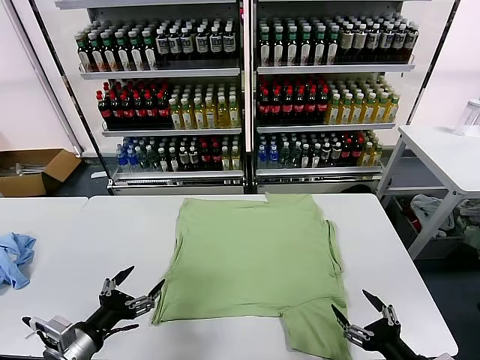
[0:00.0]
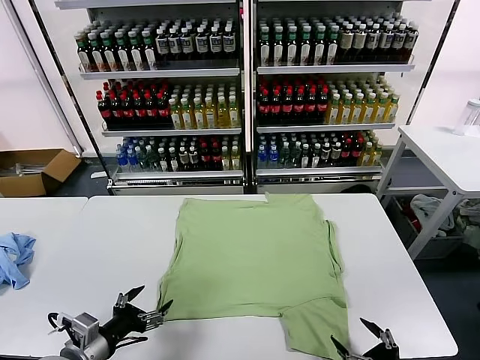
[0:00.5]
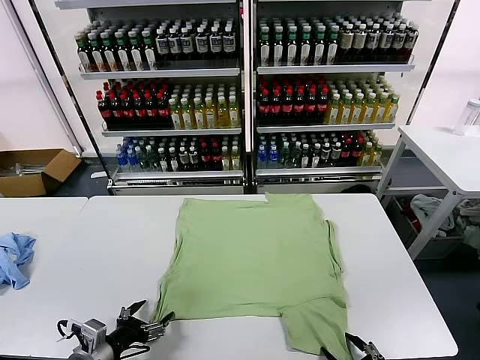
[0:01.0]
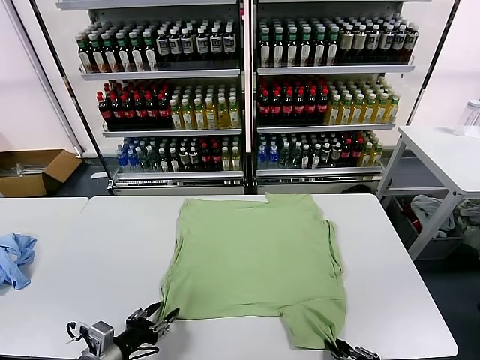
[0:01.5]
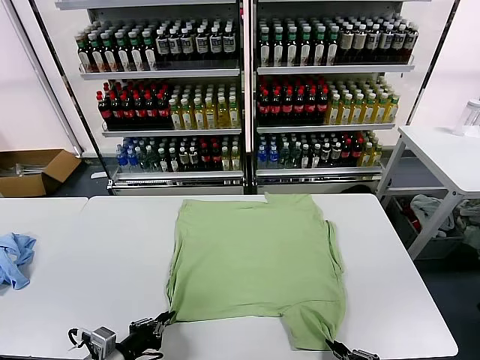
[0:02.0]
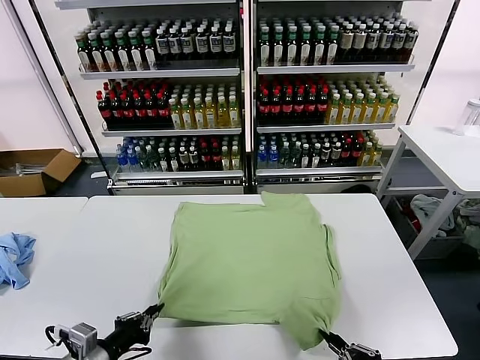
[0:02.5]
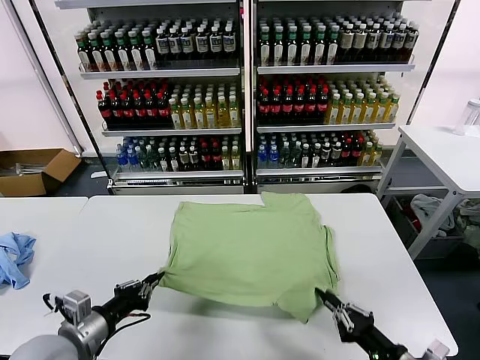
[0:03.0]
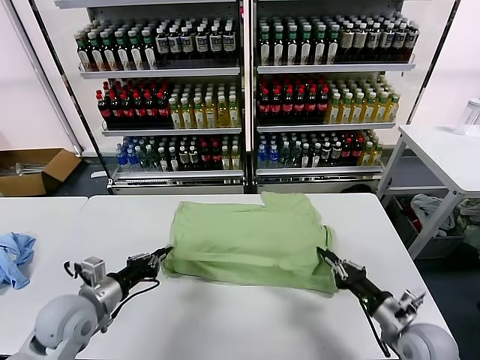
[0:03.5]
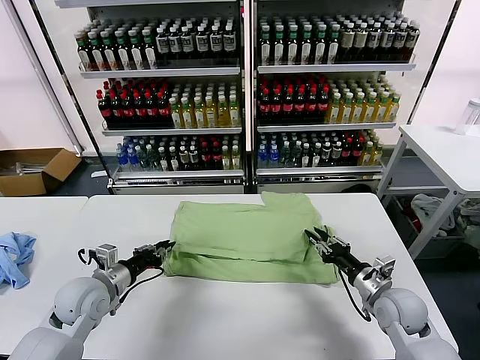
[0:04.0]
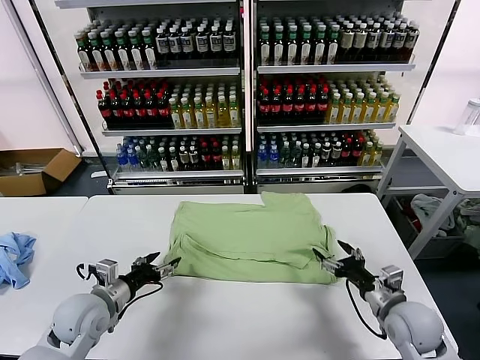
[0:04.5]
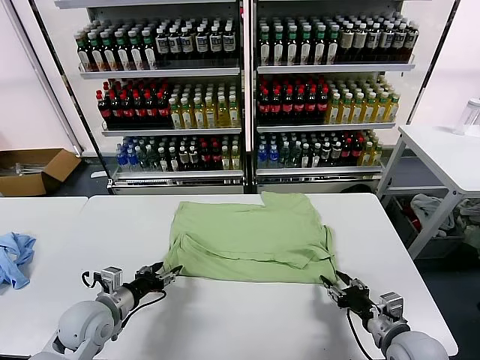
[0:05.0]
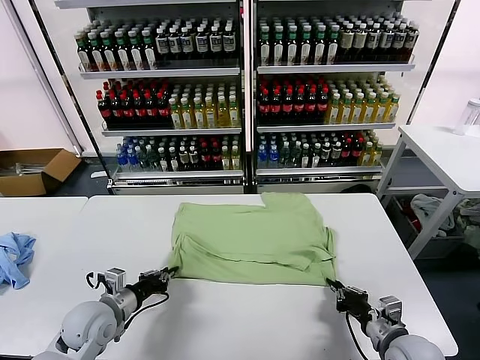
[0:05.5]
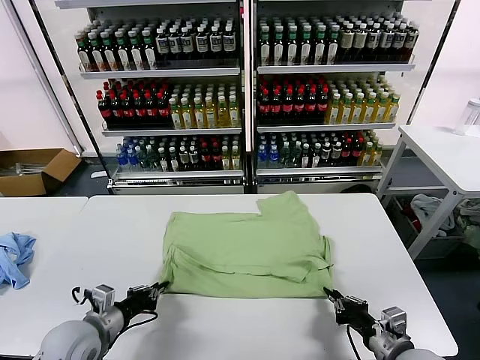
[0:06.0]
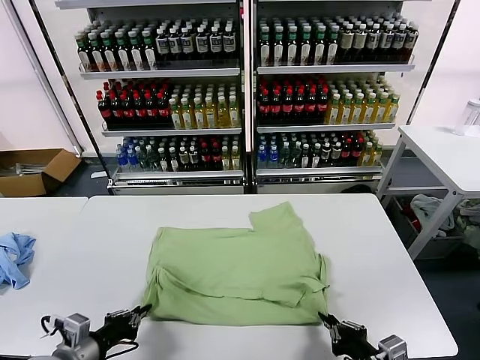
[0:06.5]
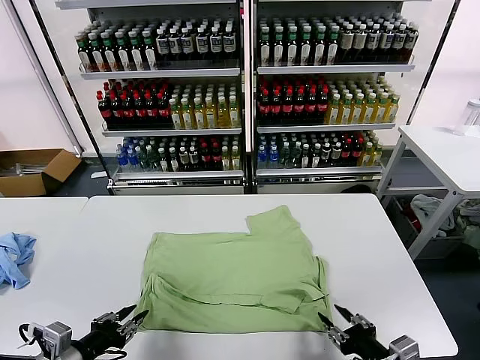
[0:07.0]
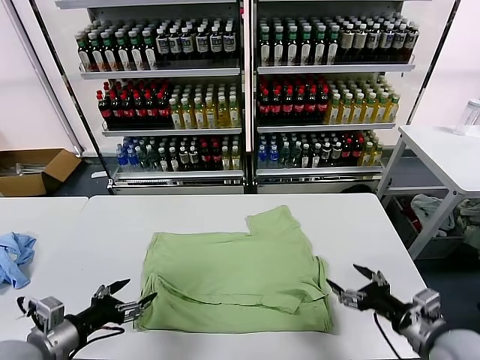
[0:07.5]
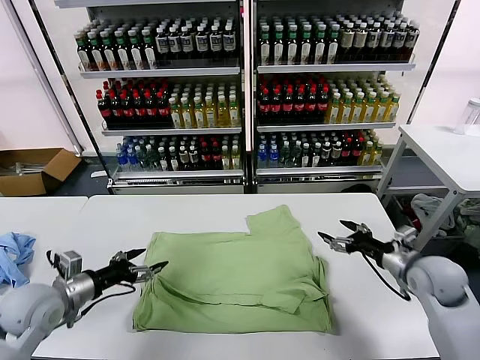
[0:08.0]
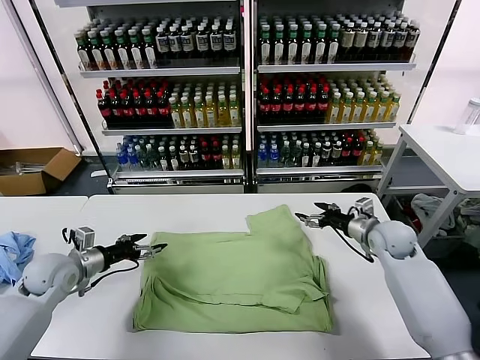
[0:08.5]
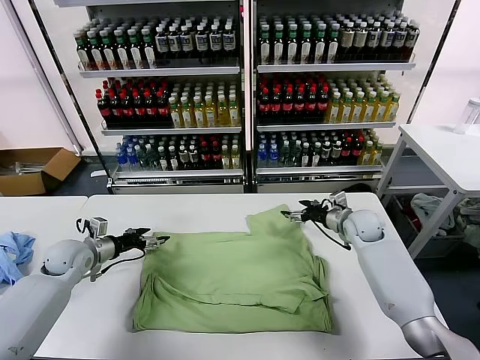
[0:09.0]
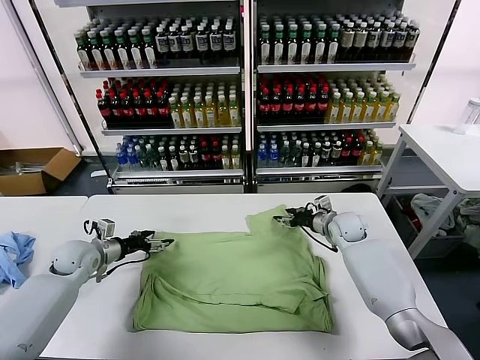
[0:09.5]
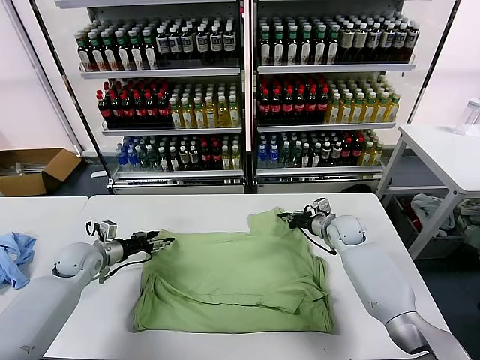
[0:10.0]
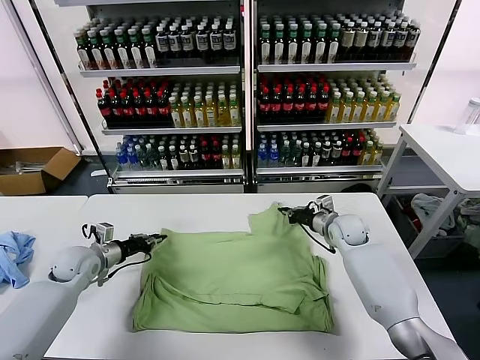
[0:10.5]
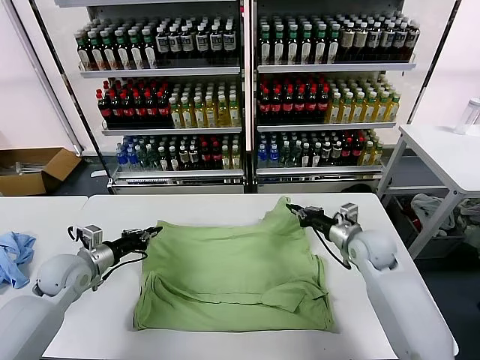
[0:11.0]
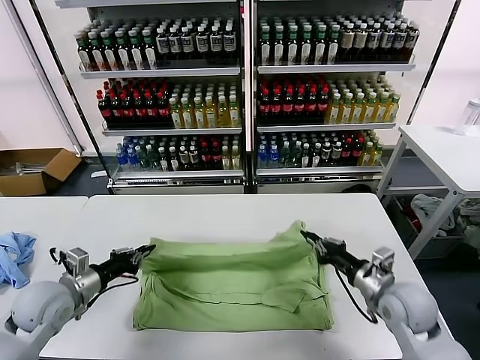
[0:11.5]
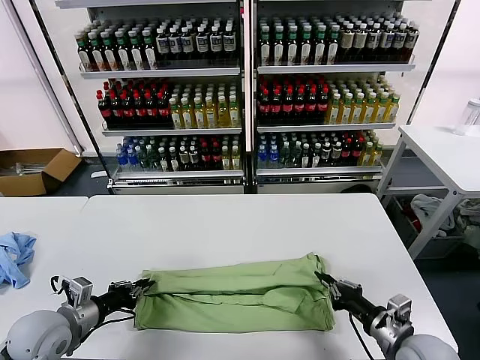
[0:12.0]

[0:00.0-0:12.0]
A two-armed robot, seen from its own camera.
Task of the whole recording: fold and organize the clothes.
Step, 0:00.0 to 0:01.5: use both grippers simultaneously to clamp the lower edge of the clothing fabric.
Step, 0:02.5 to 0:04.0: use both grippers to drag the lower edge of the fabric forward and fold it over the upper edge.
Step, 0:04.5 to 0:06.5: Drag the clothes downward with both gripper.
Step, 0:07.5 to 0:10.5: use both grippers simultaneously to clamp the upper edge of the clothing fabric.
0:02.0 to 0:04.0: The two grippers go approximately 20 cm forward. The right gripper opens up.
0:04.0 to 0:06.0: The right gripper shifts some 15 cm backward, and closes its fingers. Meanwhile the left gripper travels backward by some 10 cm, and opens, then closes again.
0:06.0 to 0:08.0: The left gripper goes roughly 10 cm upward, to the left and forward, and opens up; the right gripper heads forward, covering approximately 20 cm, and opens.
0:08.0 to 0:10.0: The left gripper goes approximately 15 cm forward and downward. The right gripper goes roughly 20 cm forward, to the left and downward, and closes.
0:10.0 to 0:12.0: The left gripper shifts roughly 20 cm backward, and closes its fingers; the right gripper heads backward, covering roughly 35 cm.

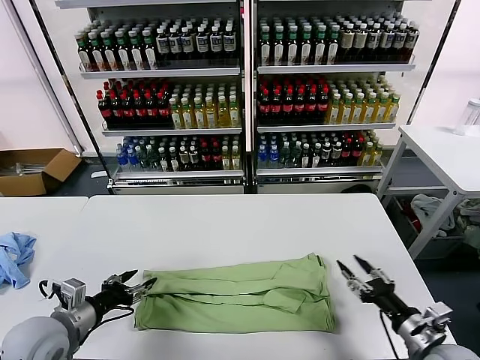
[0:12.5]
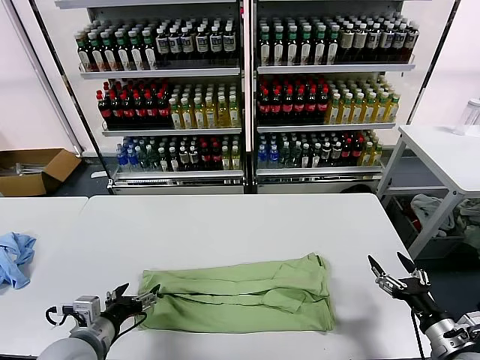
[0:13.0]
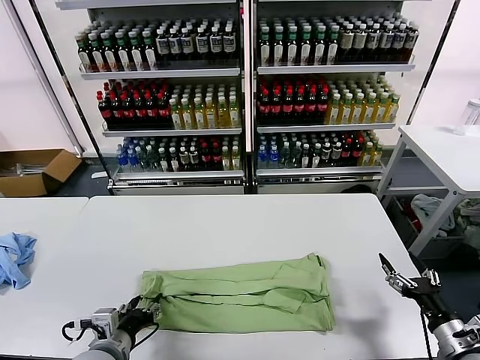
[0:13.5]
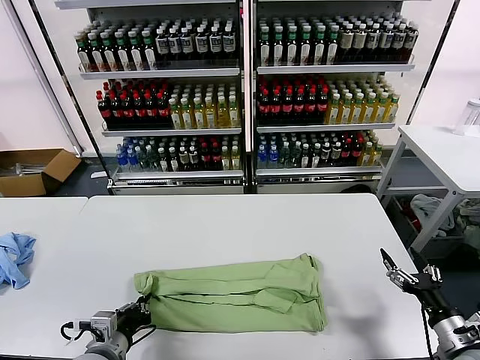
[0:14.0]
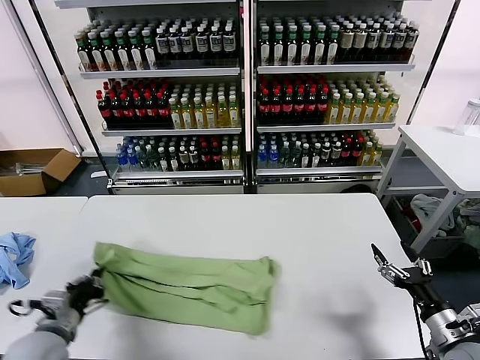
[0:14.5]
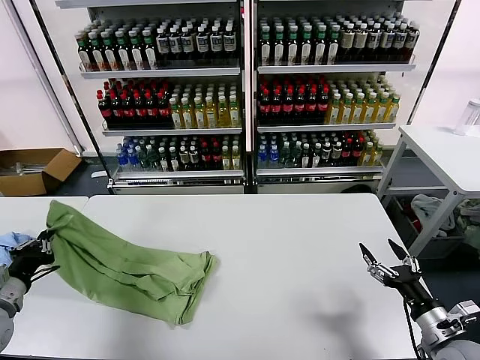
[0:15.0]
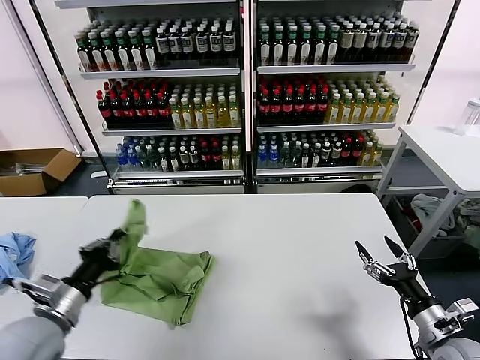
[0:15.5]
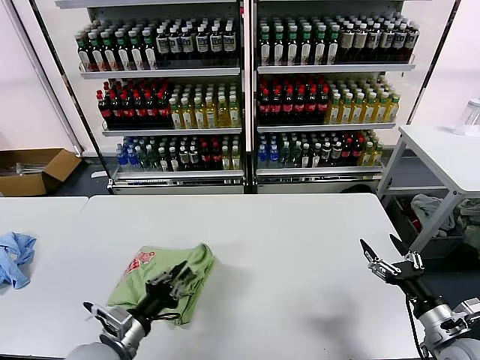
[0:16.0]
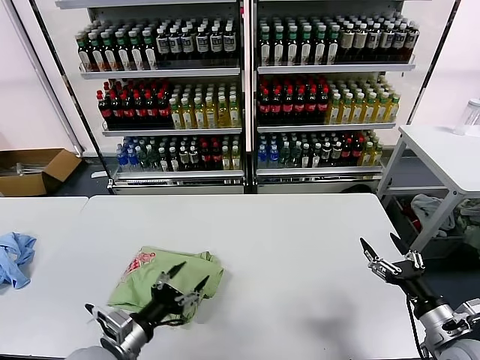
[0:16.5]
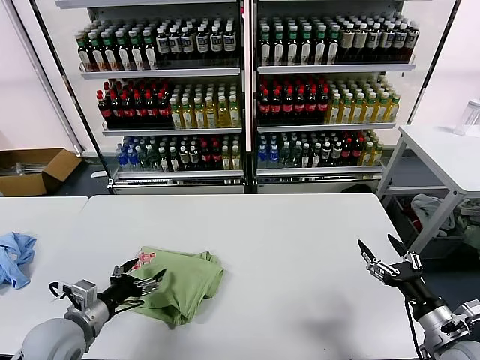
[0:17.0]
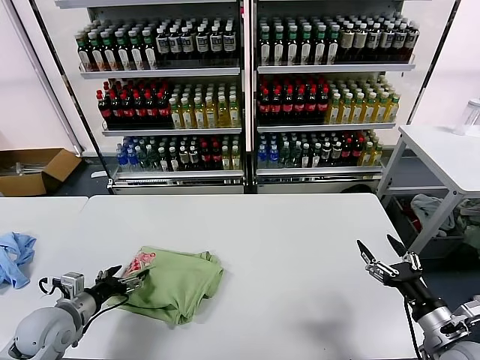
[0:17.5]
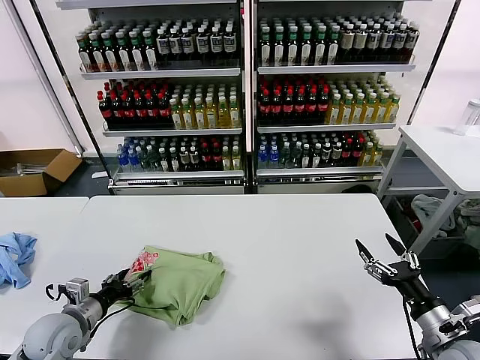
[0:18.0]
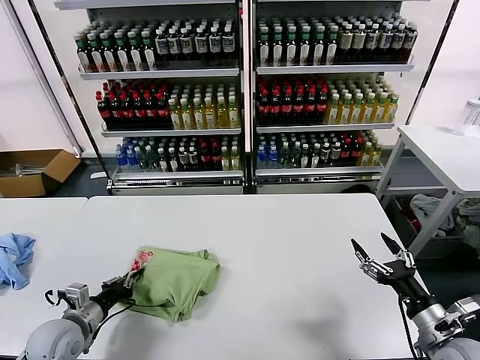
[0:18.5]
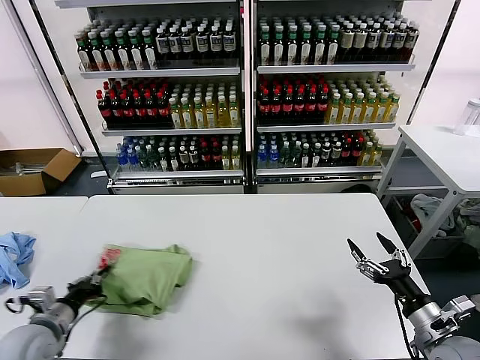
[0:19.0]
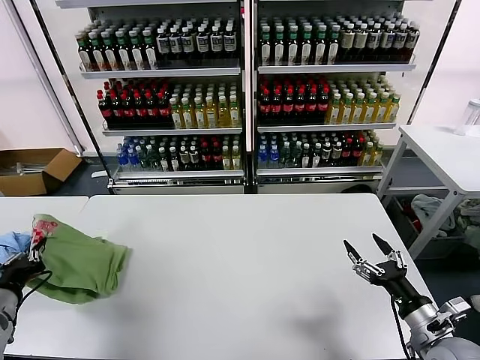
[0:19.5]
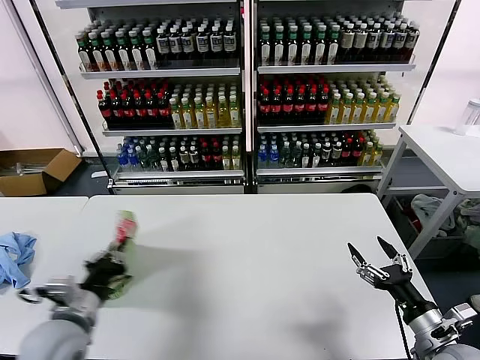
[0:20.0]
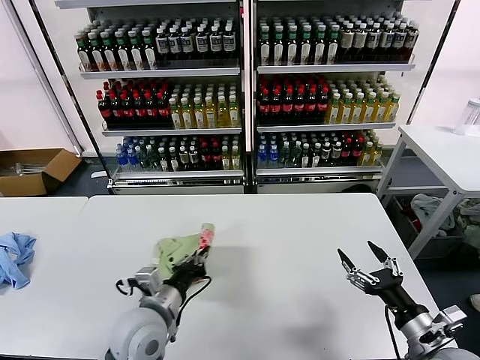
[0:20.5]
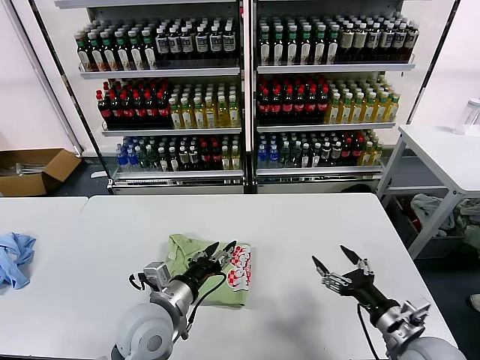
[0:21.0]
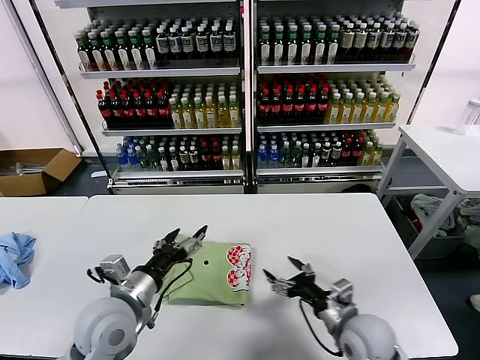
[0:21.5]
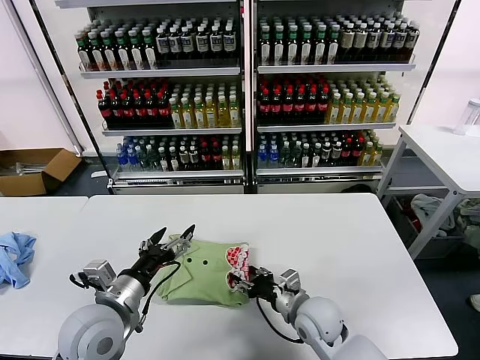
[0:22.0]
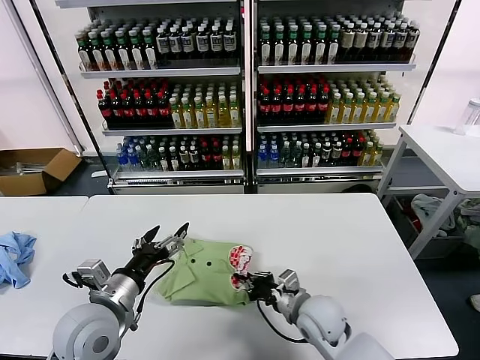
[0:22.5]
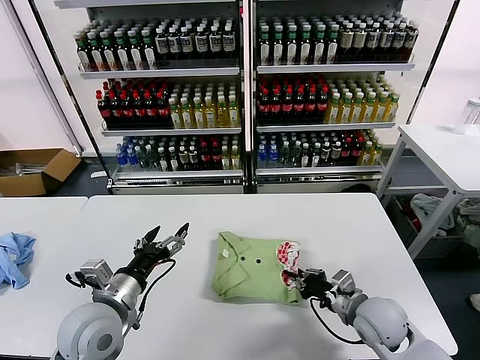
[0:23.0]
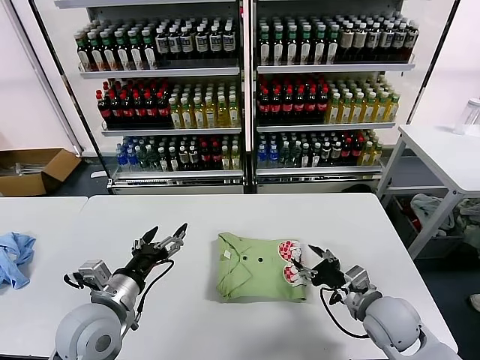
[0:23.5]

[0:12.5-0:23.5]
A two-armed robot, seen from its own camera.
Task of the whole recording: fold and organize the clothes.
Step, 0:12.5 to 0:14.0: use the left gripper to clamp the left edge of the fabric.
Step, 0:14.5 to 0:16.0: use the left gripper to drag the left edge of the fabric to the left and folds it over the right edge.
Step, 0:16.5 to 0:20.5: Flip the folded clothes over with left gripper.
0:12.5 to 0:14.5: The left gripper reaches approximately 10 cm to the right, then returns, and closes its fingers.
0:14.5 to 0:16.0: The left gripper is displaced to the right by some 10 cm.
0:16.0 to 0:18.0: The left gripper is displaced to the left and forward by approximately 15 cm, and opens up.
0:18.0 to 0:20.0: The left gripper goes roughly 10 cm upward and to the right, and closes.
0:20.0 to 0:21.5: The right gripper goes roughly 15 cm to the left and forward; the left gripper moves to the right, approximately 10 cm, and opens.
0:21.5 to 0:23.5: The right gripper moves approximately 10 cm to the left and comes back, and closes, then reopens.

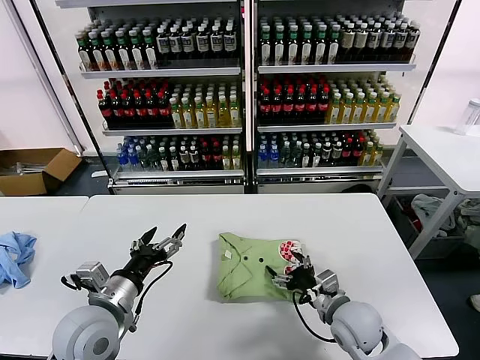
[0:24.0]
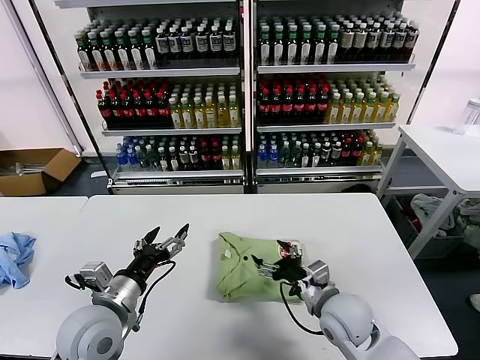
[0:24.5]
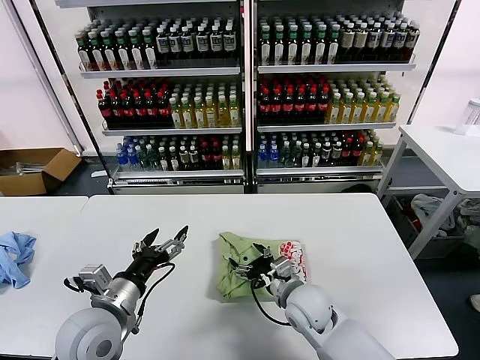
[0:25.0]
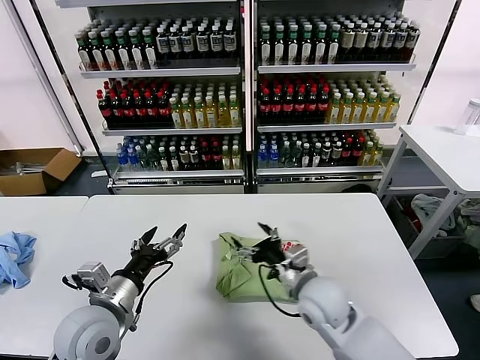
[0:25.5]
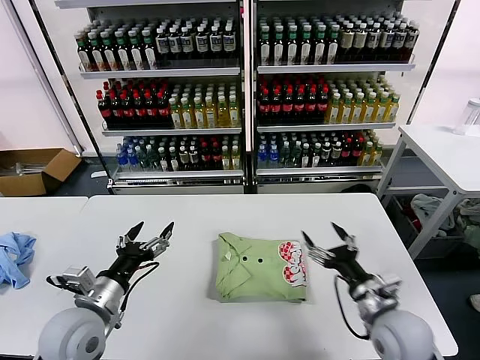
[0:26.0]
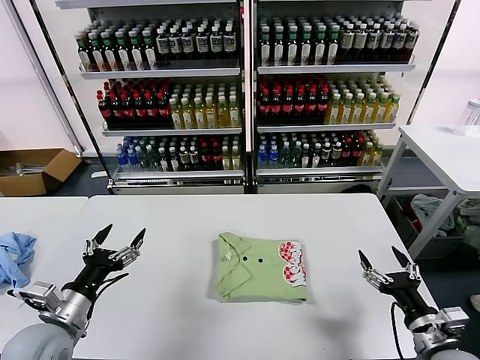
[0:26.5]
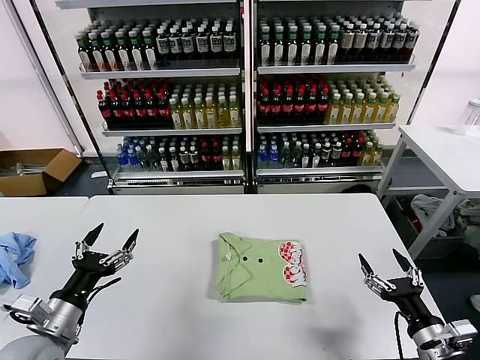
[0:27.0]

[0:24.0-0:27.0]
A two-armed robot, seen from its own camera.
Task of the whole recording: fold and organize the clothes.
0:24.0 to 0:25.5: The right gripper shifts about 10 cm to the left.
0:25.5 to 0:27.0: The left gripper heads to the left, covering approximately 10 cm. The right gripper heads to the right and backward, covering about 25 cm.
